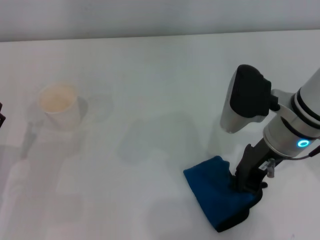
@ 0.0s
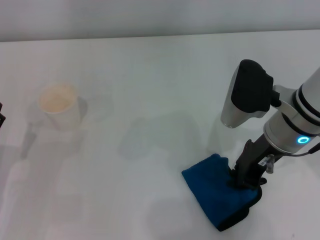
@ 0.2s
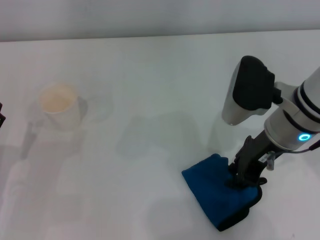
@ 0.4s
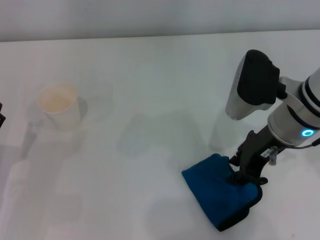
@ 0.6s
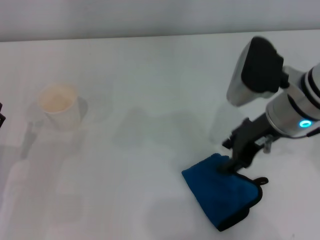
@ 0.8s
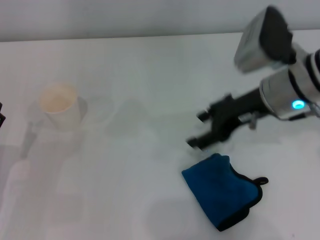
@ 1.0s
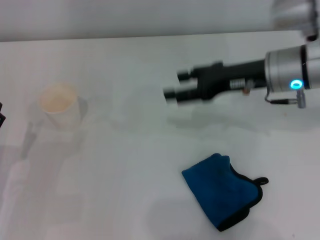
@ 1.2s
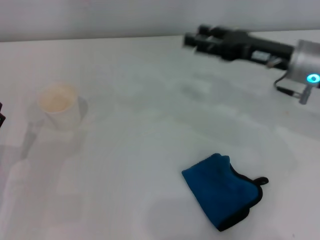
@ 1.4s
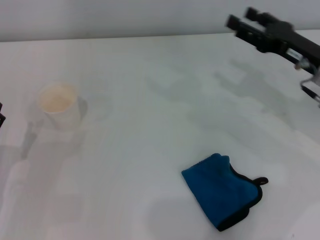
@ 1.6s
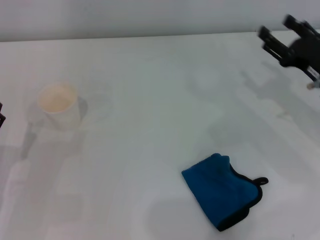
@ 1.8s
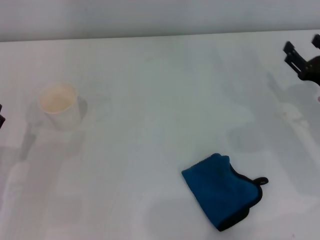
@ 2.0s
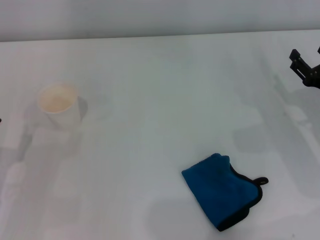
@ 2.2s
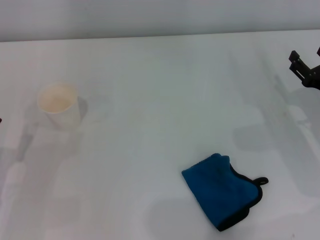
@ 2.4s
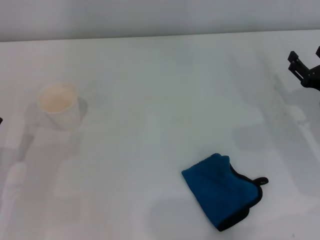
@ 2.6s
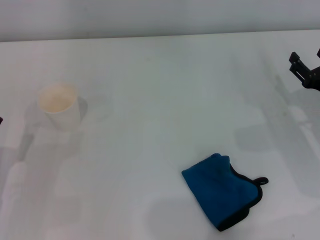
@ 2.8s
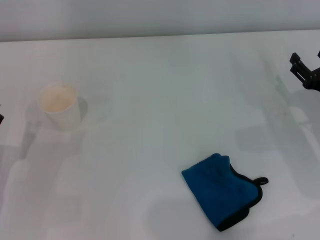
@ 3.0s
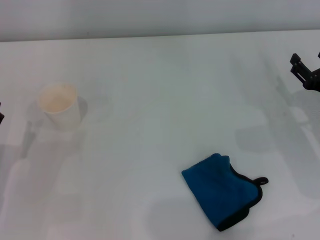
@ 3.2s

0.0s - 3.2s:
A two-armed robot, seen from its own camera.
0.0s - 1.6s: The right gripper shifts about 10 cm to the right, and opens its fingers.
1.6s - 3.2s: The right gripper shifts about 5 cm downward.
